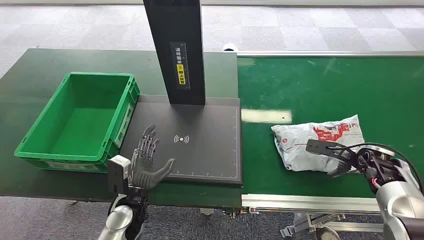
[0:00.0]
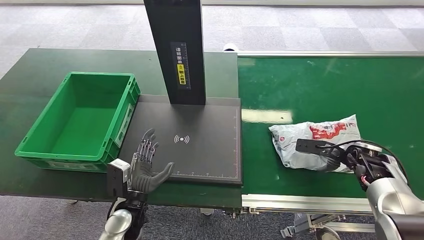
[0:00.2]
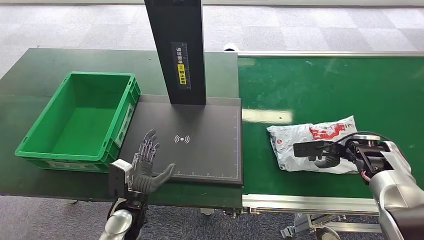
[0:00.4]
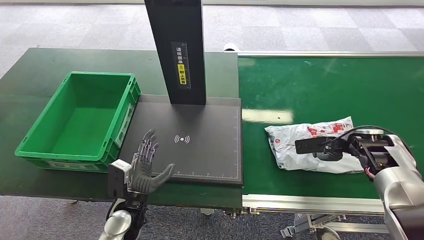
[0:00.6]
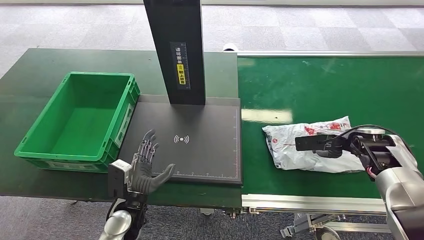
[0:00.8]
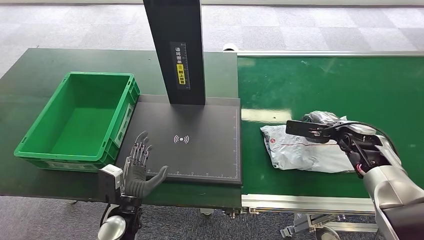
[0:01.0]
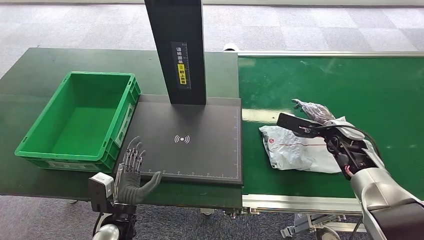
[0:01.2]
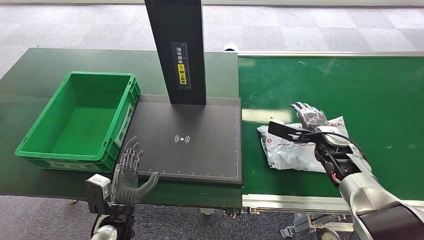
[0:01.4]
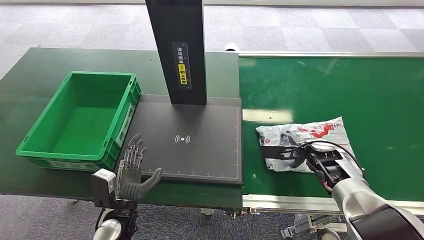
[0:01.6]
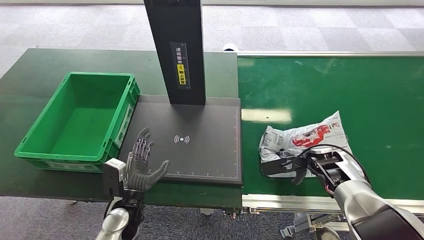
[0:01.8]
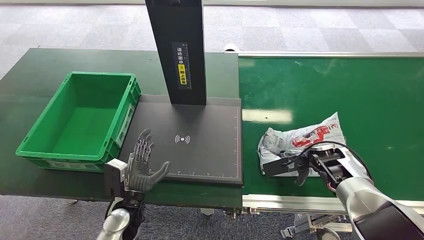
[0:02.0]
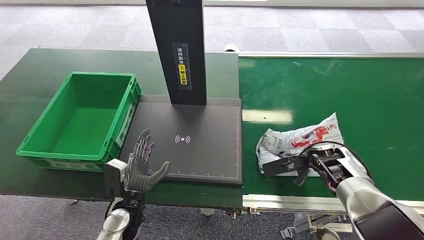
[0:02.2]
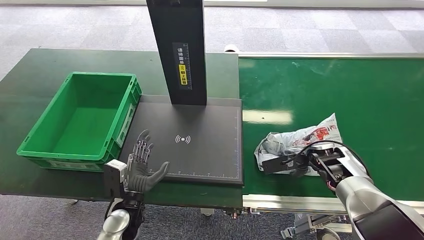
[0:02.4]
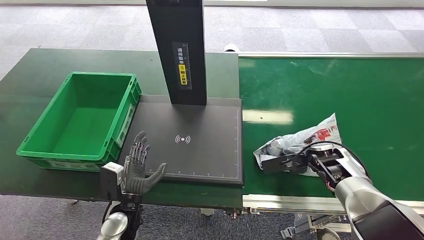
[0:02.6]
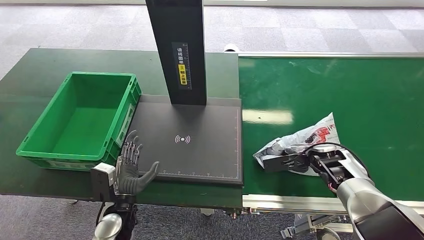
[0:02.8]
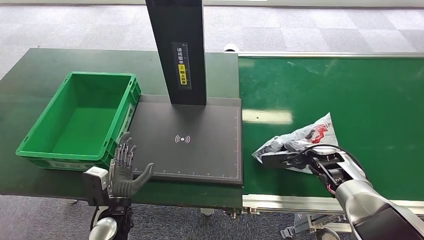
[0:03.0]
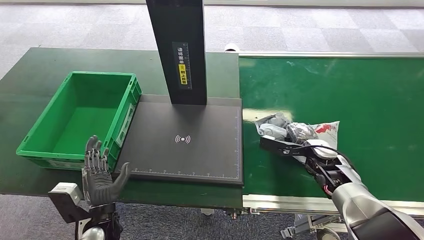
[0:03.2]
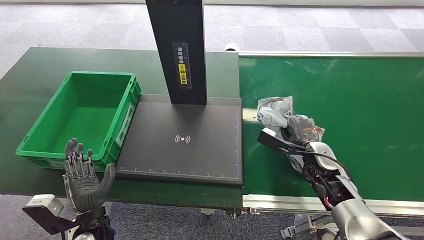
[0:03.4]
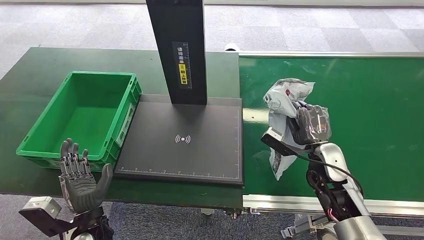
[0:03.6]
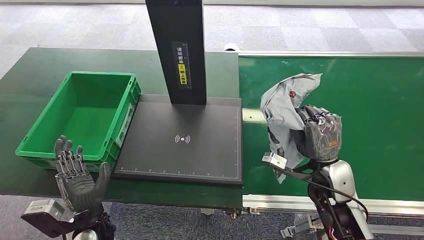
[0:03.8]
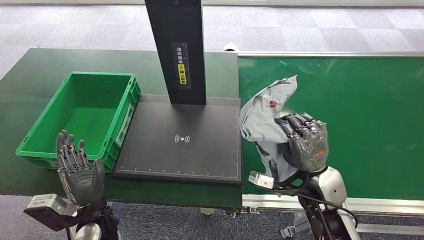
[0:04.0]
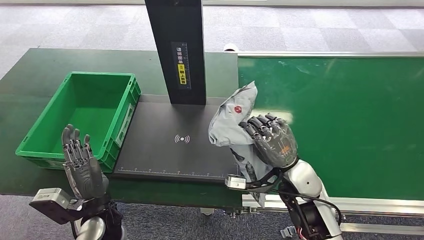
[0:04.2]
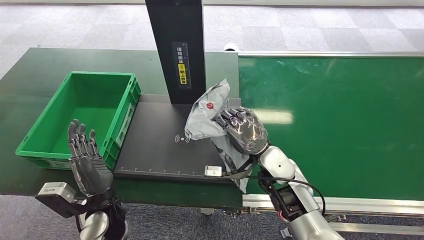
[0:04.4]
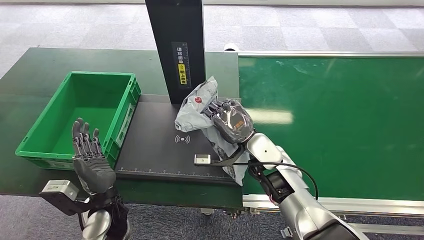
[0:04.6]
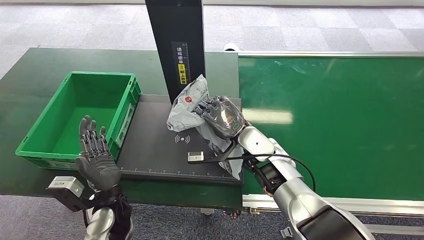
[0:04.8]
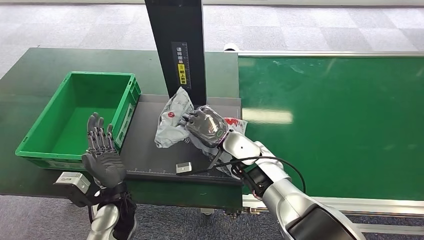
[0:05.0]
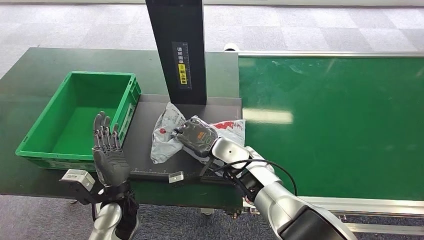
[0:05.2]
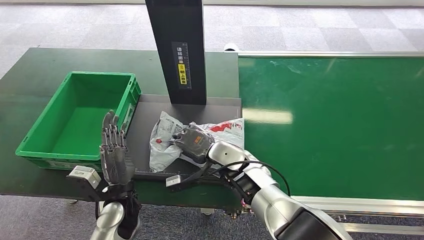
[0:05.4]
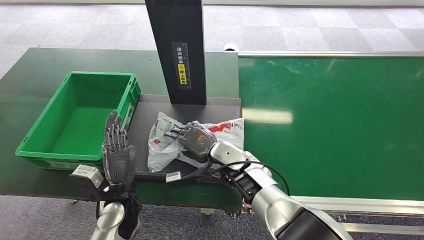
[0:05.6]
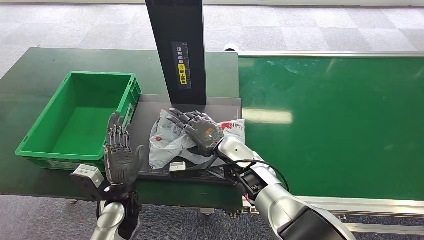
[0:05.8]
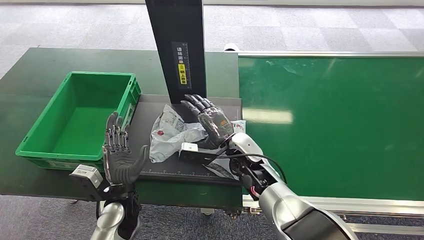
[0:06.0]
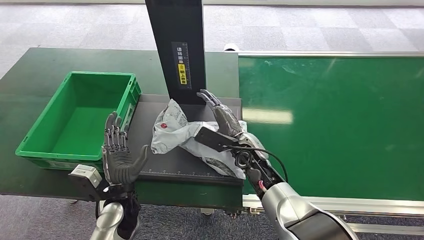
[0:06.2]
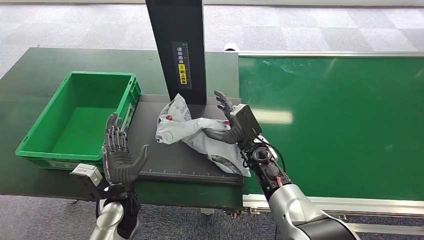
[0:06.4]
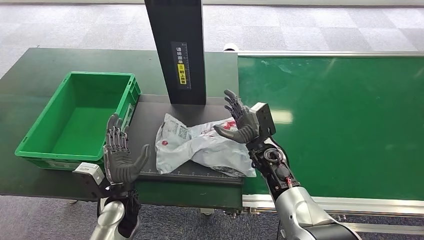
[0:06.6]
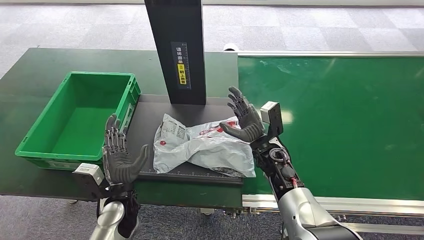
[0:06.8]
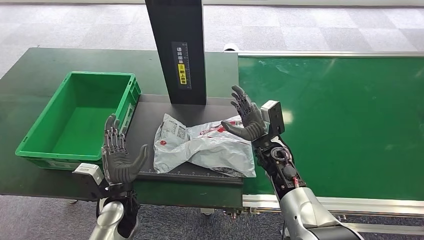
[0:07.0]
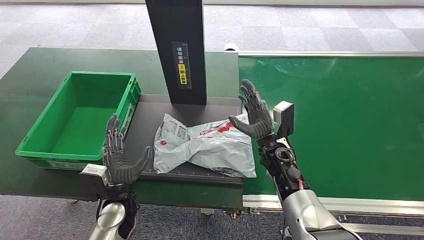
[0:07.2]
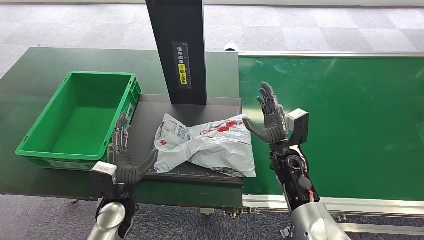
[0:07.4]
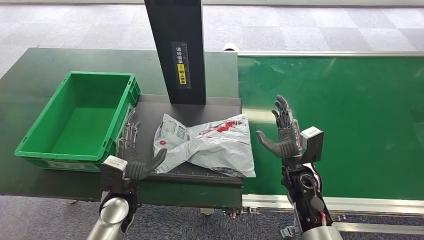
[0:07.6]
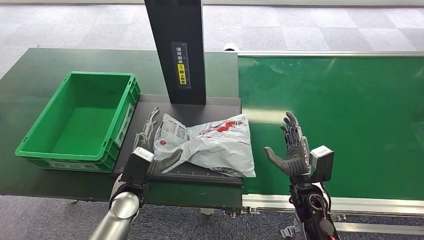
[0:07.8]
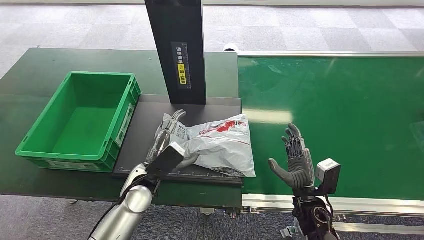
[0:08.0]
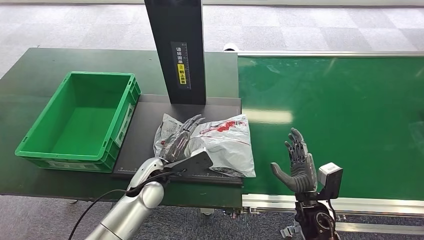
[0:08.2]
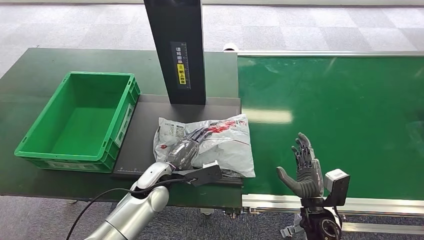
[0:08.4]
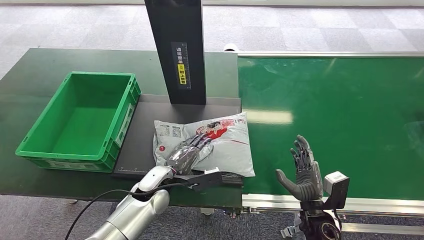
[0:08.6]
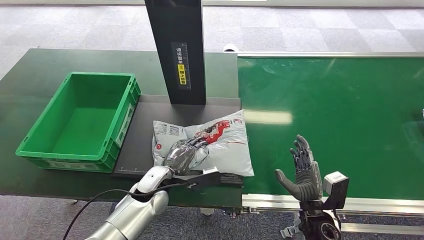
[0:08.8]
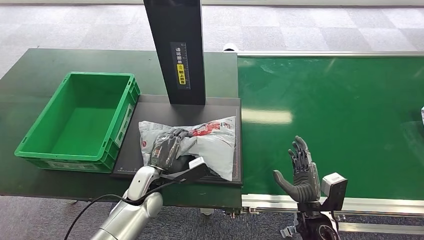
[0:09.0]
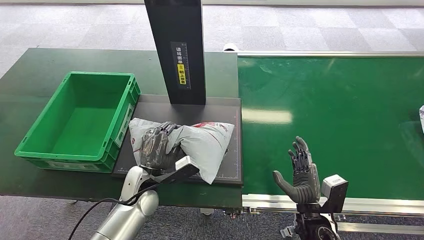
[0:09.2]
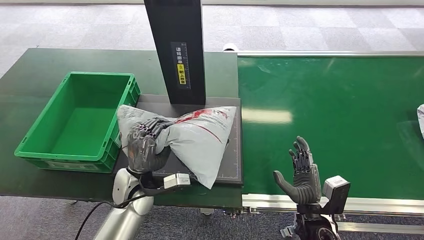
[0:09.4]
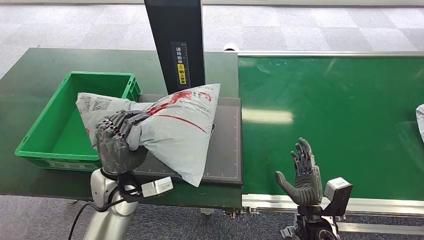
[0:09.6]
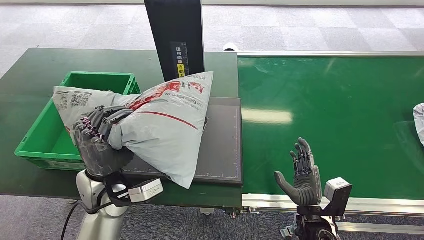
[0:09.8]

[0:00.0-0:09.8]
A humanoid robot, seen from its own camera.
Step, 0:00.0 to 0:03.6: Pick up the package from the conveyor belt.
Step, 0:03.8 to 0:06.4: Place the package onto the inbound machine.
0:02.8 to 0:04.2: The right hand goes approximately 20 cm to the left and backward.
0:04.2 to 0:05.6: The right hand goes about 15 cm to the left and forward.
0:05.6 to 0:07.0: The right hand goes about 10 cm to the right.
0:07.0 to 0:08.4: The left hand shifts some 10 cm to the right and forward. Meanwhile the right hand is displaced backward, to the right and downward by approximately 20 cm.

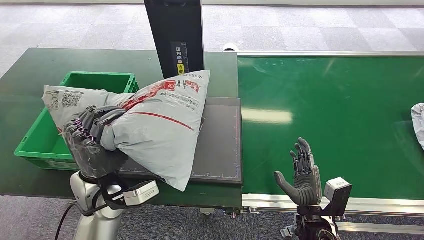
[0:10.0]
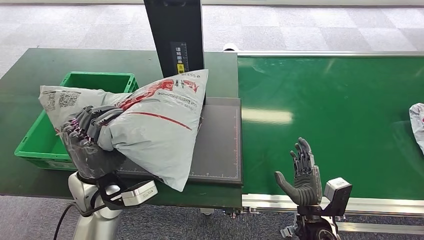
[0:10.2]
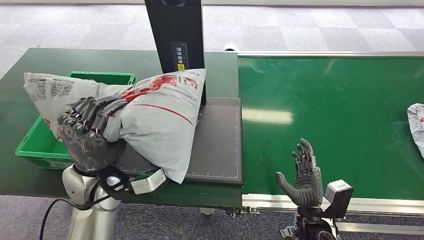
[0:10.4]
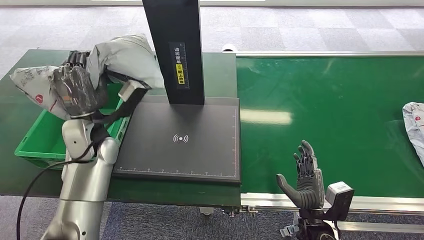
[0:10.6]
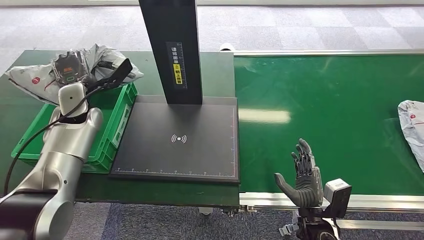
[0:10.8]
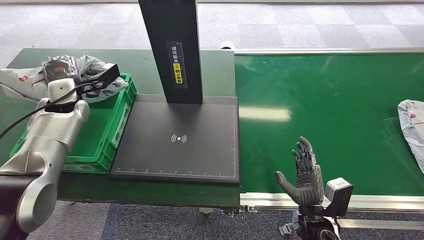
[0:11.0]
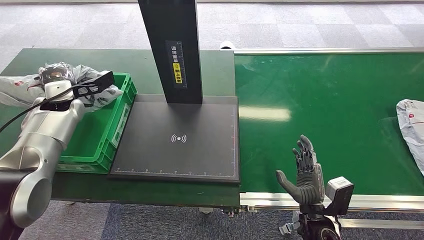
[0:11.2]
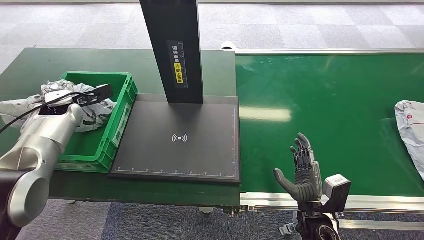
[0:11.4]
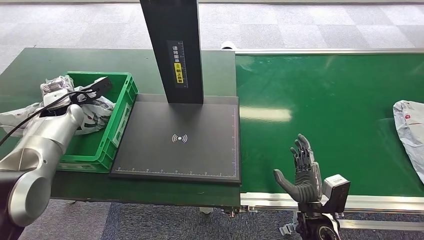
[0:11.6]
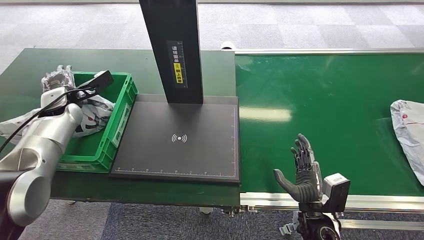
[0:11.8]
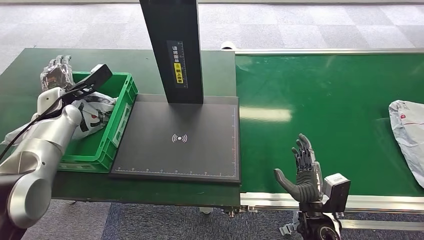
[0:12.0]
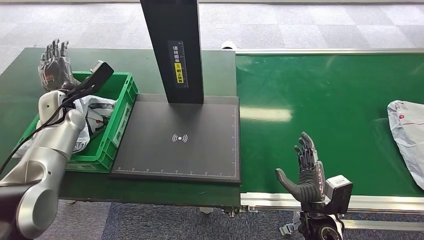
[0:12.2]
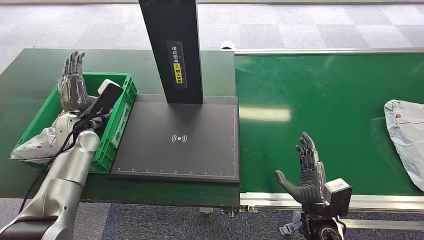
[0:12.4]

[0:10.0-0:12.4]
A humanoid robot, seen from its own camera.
Step, 0:10.2 to 0:12.2: Place the package into the parcel locker.
0:11.2 to 0:12.4: The left hand goes approximately 10 cm downward and backward.

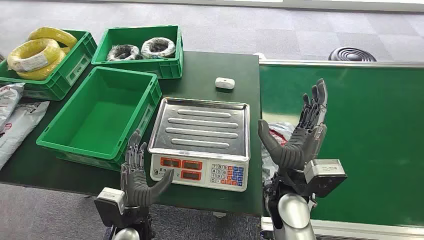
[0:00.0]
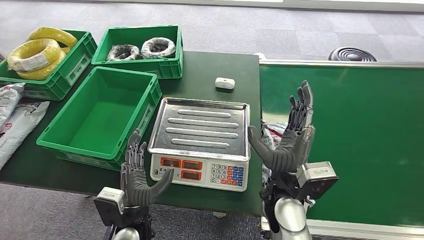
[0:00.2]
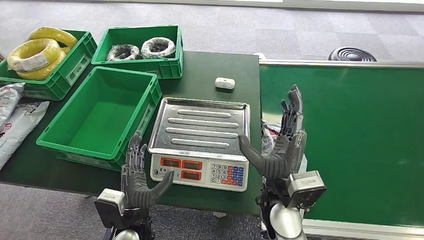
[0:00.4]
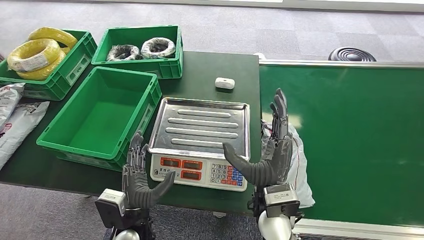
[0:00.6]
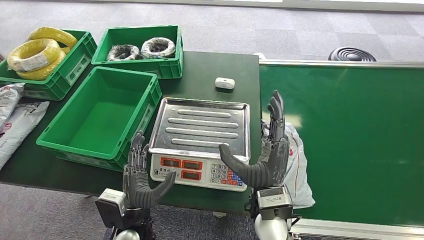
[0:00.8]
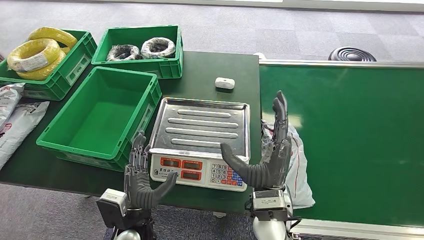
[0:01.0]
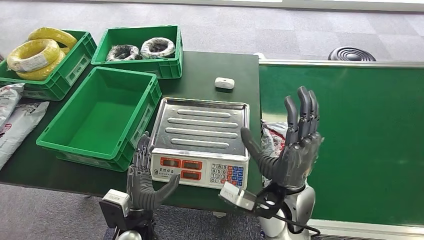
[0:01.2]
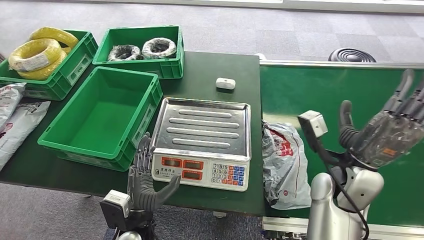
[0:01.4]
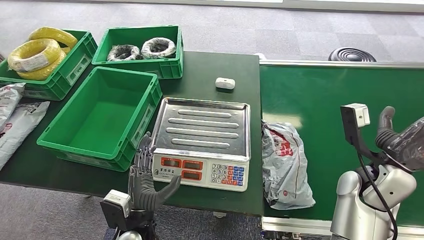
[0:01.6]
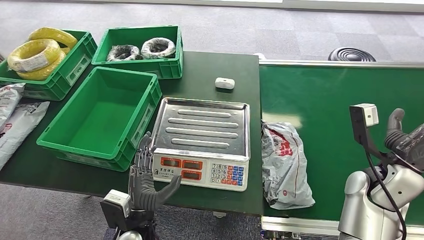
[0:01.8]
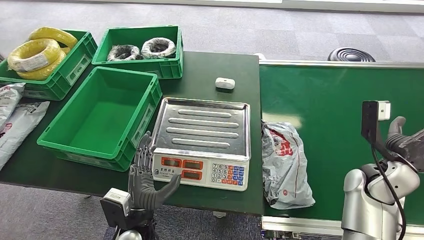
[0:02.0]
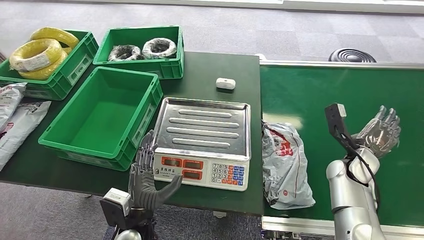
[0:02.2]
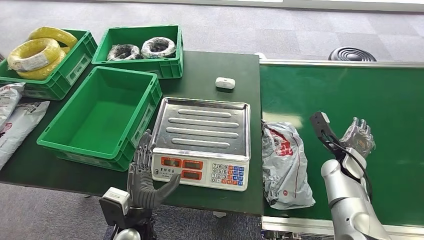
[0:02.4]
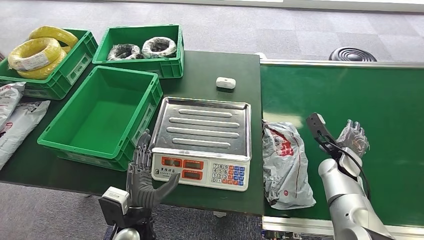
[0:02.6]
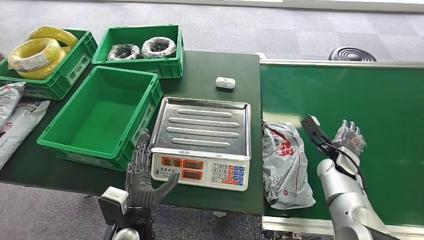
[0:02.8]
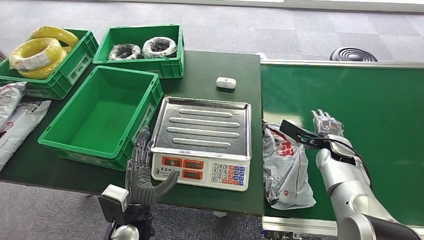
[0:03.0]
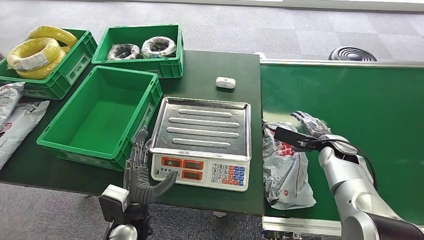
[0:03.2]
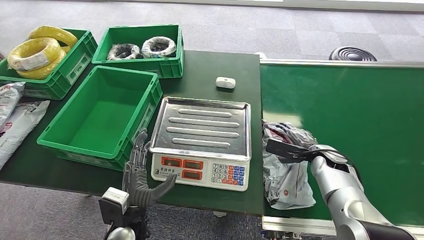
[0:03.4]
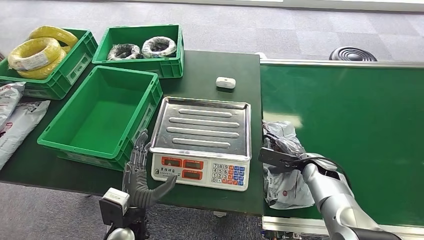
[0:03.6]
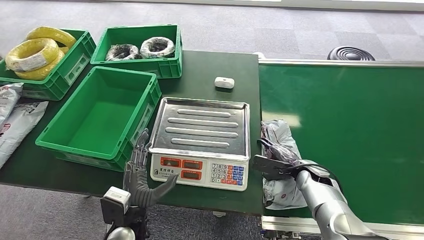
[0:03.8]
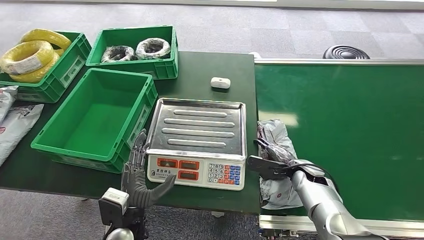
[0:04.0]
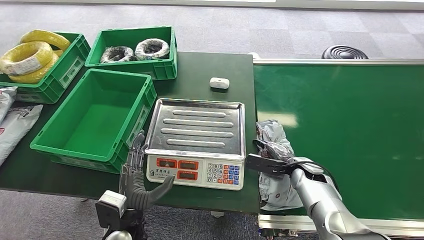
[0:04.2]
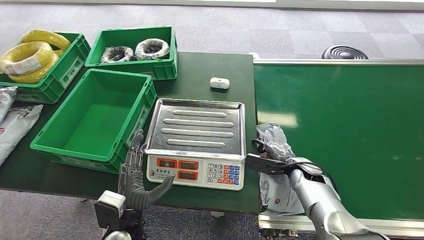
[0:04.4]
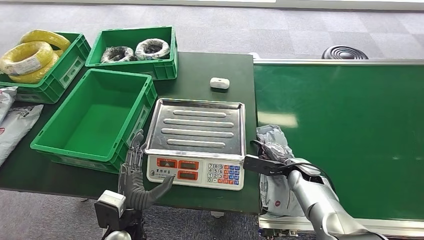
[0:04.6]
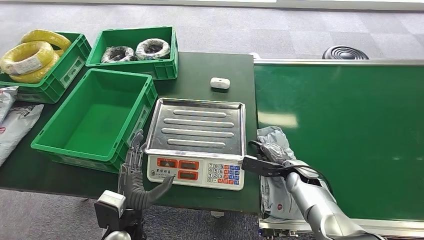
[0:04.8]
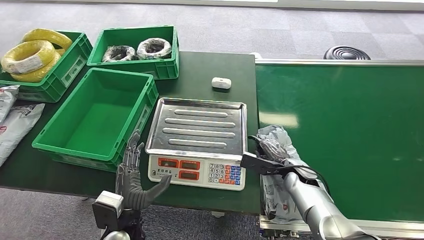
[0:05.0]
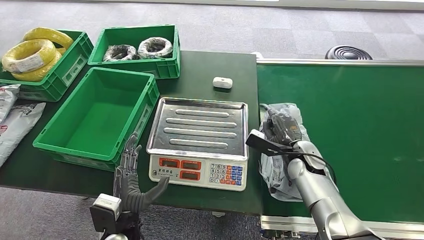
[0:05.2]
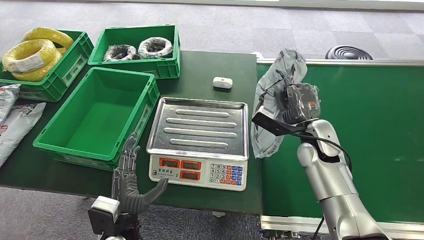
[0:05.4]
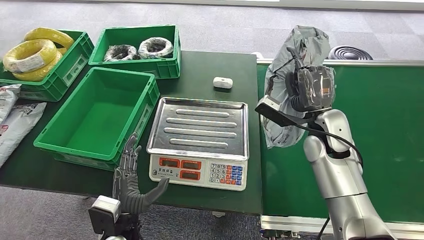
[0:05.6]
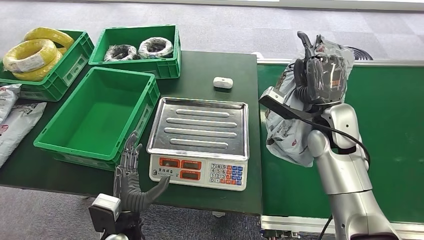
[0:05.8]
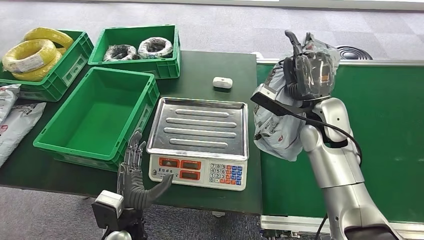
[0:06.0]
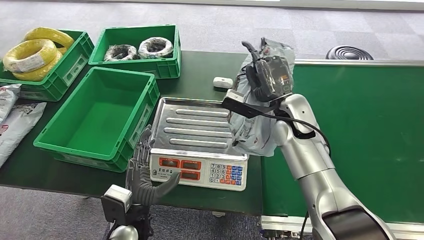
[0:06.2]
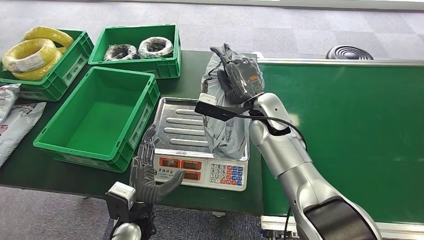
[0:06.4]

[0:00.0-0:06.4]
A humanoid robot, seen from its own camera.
Step, 0:00.0 to 0:05.4: Pick up the package from the conveyor belt.
0:01.6 to 0:03.2: The right hand shifts roughly 15 cm forward and downward.
